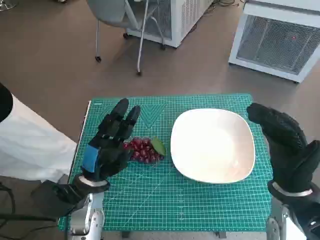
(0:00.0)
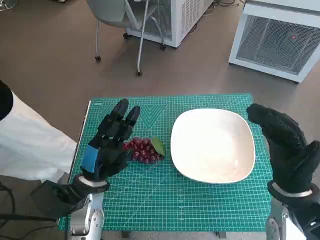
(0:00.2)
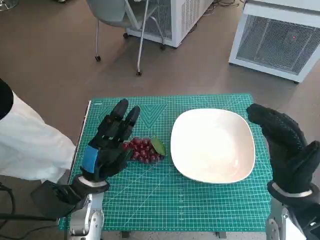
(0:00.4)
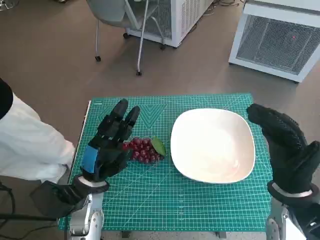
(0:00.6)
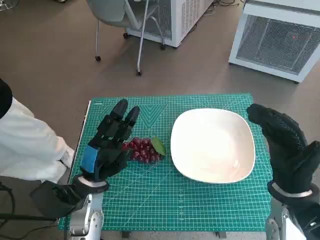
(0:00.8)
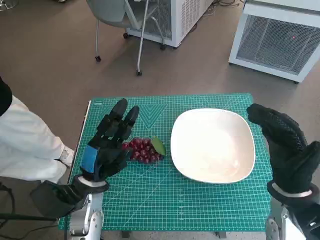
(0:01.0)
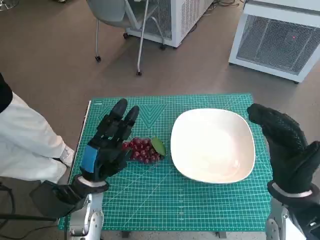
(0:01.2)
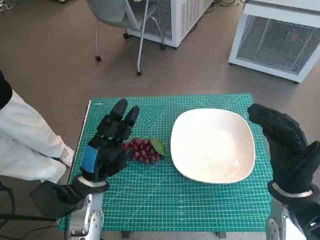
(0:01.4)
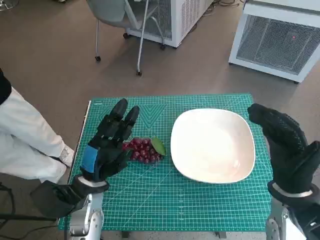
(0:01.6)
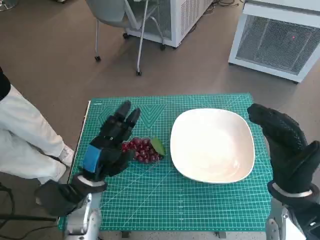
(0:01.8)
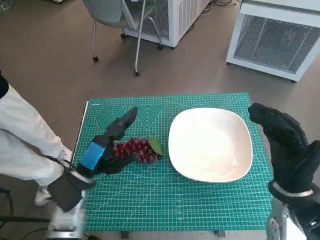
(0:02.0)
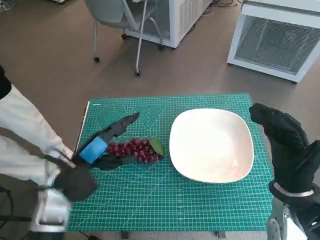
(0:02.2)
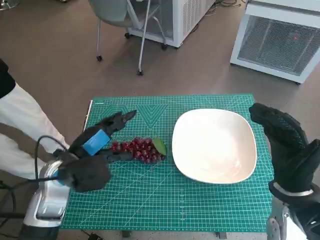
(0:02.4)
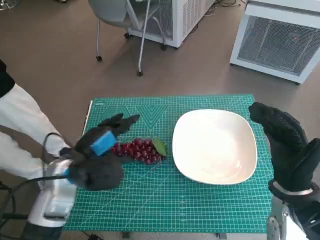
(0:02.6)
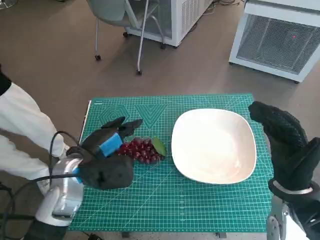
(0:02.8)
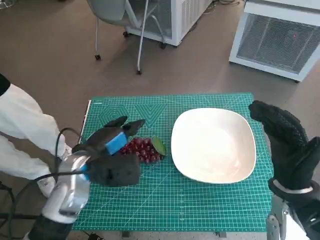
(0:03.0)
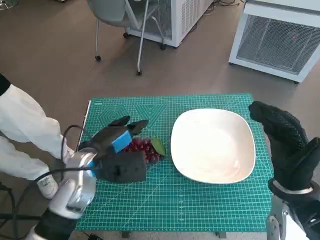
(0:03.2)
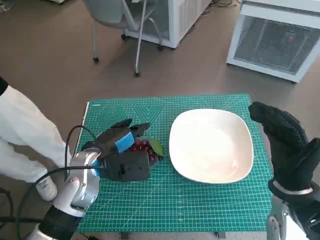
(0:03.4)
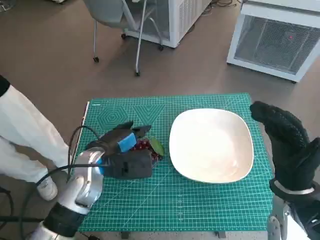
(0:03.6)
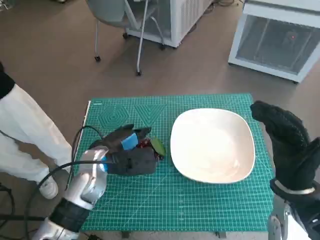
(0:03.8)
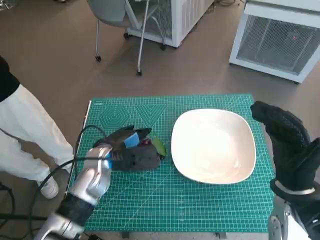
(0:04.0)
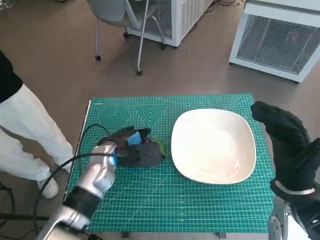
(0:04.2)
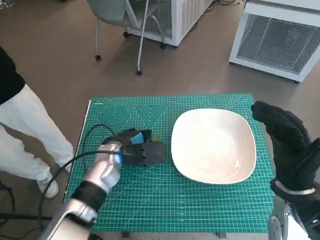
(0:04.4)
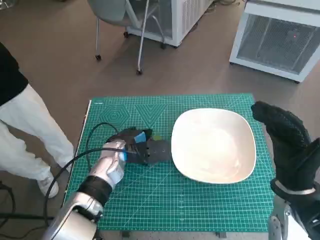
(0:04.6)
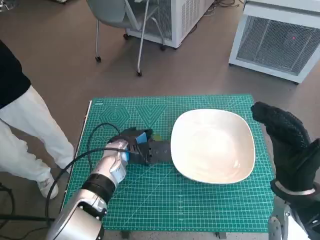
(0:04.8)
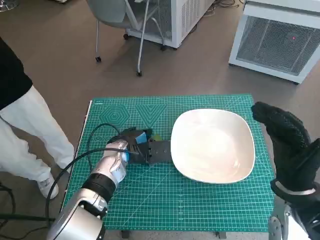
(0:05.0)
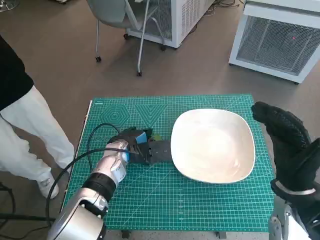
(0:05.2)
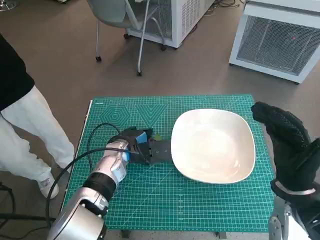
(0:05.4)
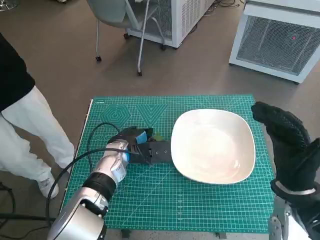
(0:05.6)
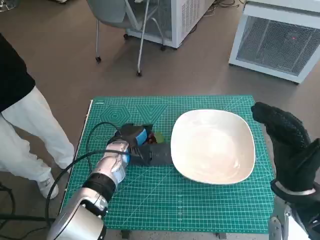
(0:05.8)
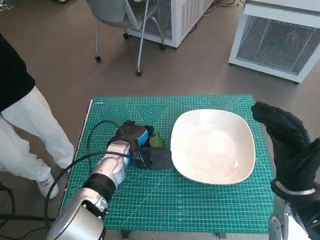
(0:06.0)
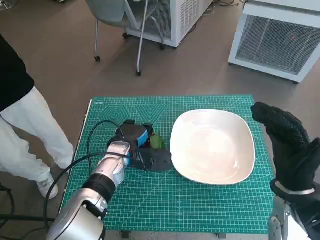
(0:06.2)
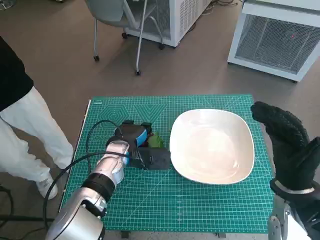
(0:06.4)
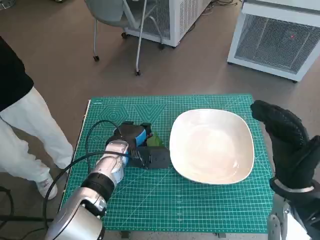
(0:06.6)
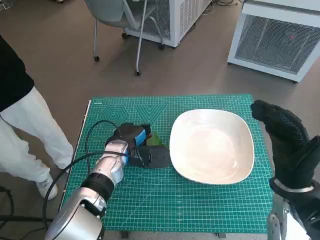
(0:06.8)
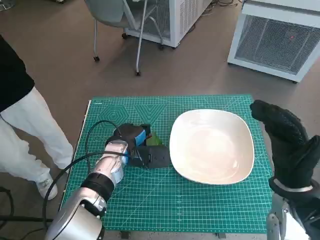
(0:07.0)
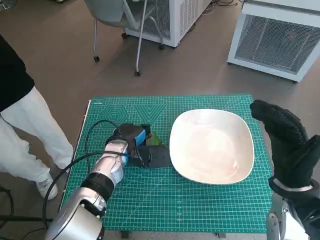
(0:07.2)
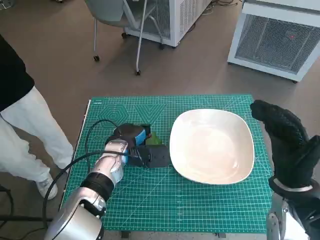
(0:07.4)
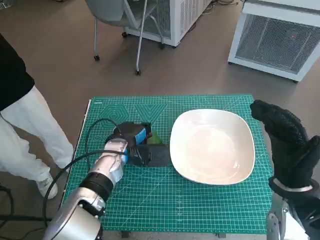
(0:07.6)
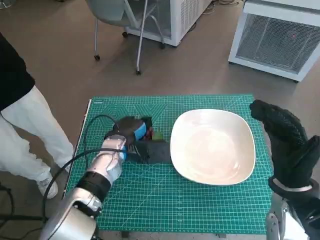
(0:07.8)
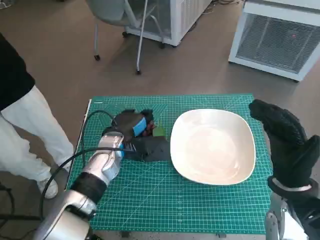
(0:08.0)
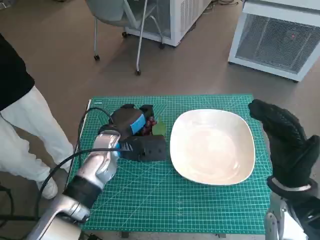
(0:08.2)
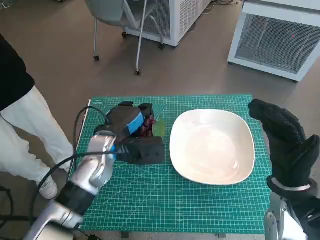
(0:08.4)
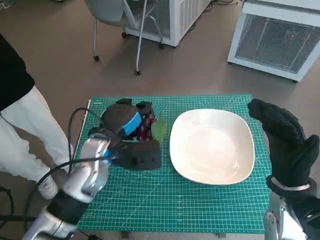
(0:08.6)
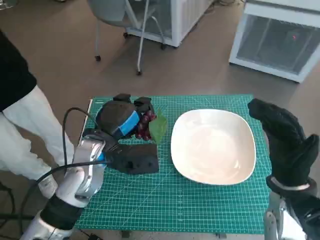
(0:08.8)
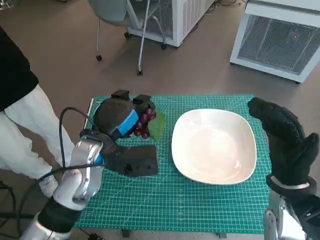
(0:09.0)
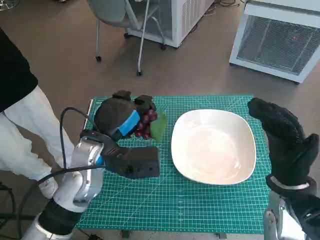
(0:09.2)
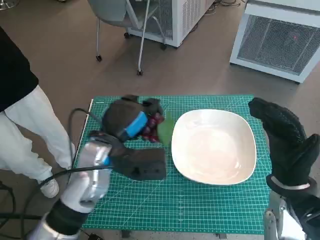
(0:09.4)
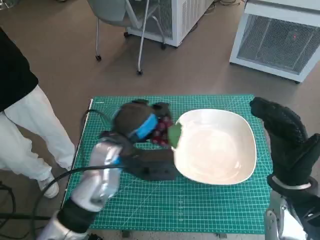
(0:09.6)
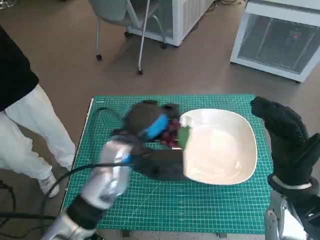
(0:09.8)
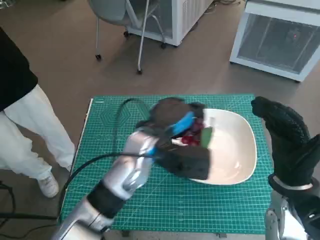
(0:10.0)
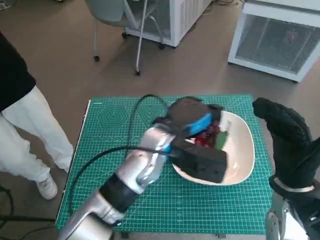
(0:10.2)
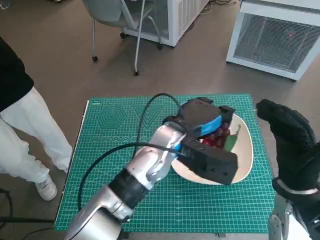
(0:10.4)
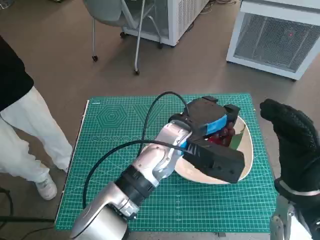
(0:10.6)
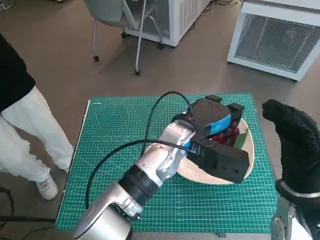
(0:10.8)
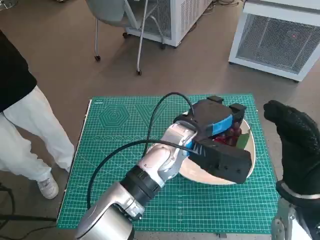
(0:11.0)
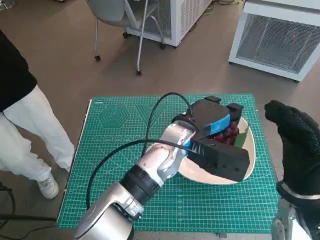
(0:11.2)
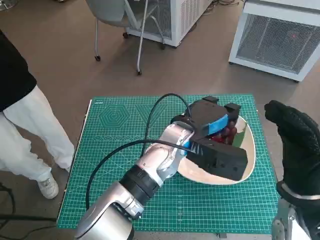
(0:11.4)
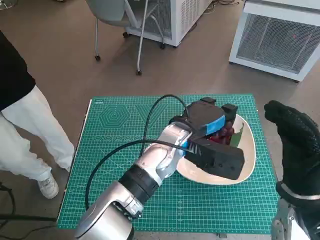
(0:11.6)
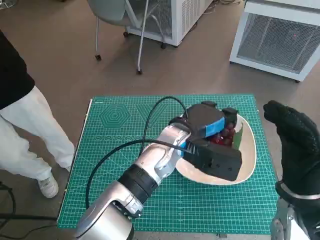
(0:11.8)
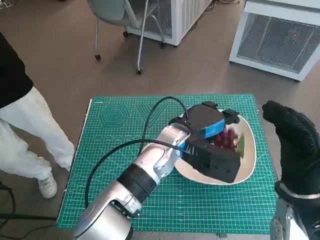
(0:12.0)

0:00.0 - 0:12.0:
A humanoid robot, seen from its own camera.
Task of the whole recording: Pick up the grapes and put them on the plate.
Step, 0:00.0 - 0:05.8: Grasp the grapes with left hand.
0:01.6 - 0:03.0: The left hand heads upward, covering about 5 cm.
0:03.0 - 0:04.4: The left hand goes about 5 cm forward.
0:04.4 - 0:06.0: There are only small adjustments of the hands.
0:06.0 - 0:07.6: Both hands stay about where they are.
0:07.6 - 0:09.0: The left hand goes some 10 cm upward and backward.
0:09.0 - 0:10.4: The left hand shifts some 15 cm to the right.
0:10.4 - 0:12.0: The hands make only small movements.

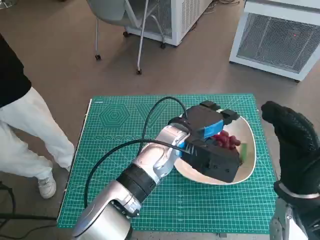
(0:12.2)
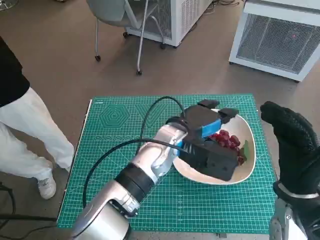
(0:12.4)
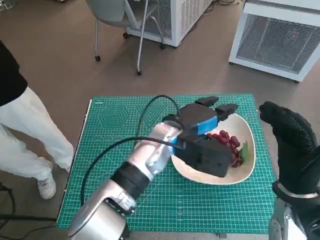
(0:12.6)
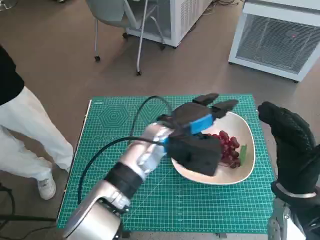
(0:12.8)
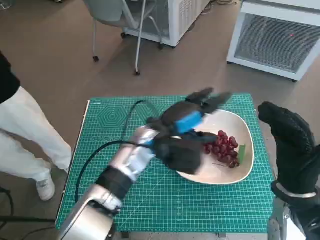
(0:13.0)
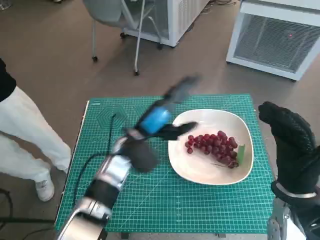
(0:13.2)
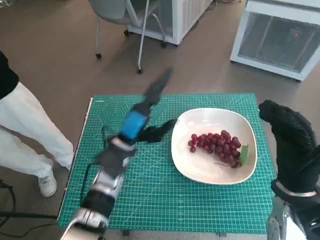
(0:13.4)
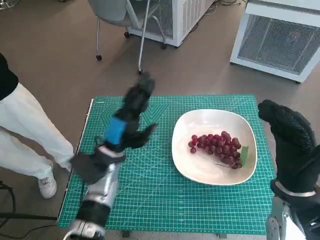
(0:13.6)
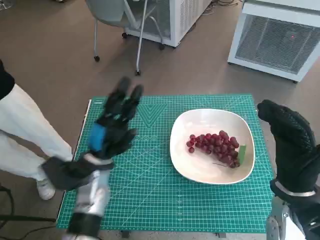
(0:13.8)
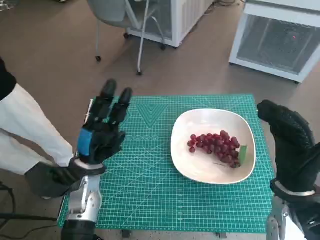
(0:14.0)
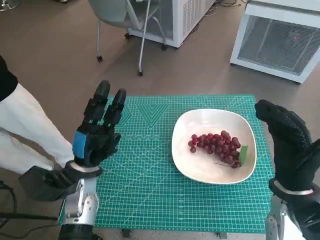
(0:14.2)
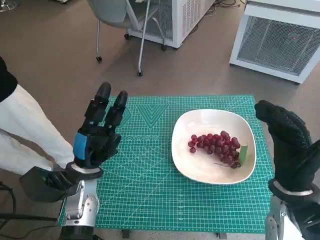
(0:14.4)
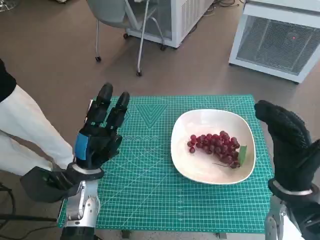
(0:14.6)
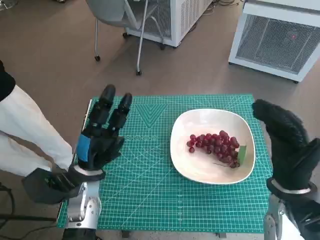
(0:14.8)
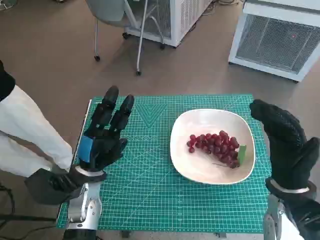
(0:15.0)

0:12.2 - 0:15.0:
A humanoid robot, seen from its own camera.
Task of the whole recording: Pick up the grapes and put them on the plate.
0:12.2 - 0:13.6: The left hand heads to the left, covering about 15 cm.
0:13.6 - 0:15.0: The left hand changes place by roughly 5 cm.

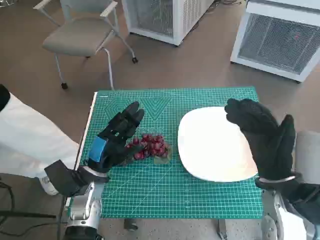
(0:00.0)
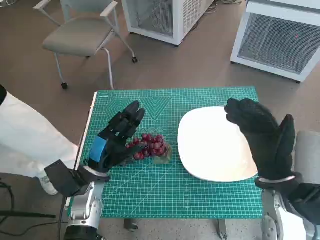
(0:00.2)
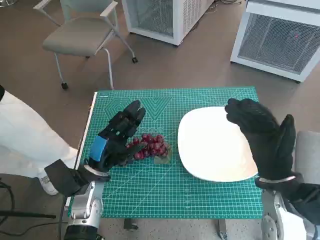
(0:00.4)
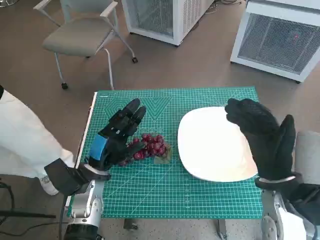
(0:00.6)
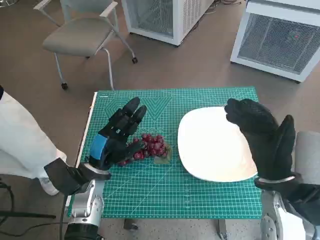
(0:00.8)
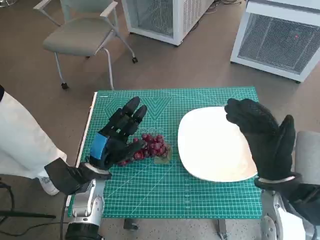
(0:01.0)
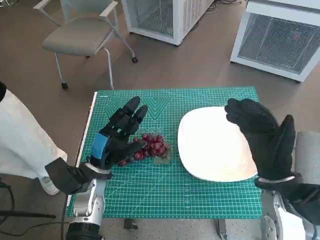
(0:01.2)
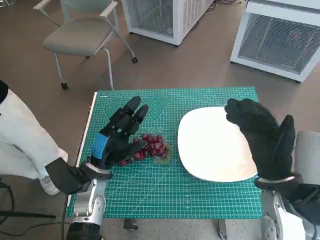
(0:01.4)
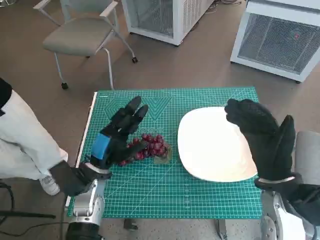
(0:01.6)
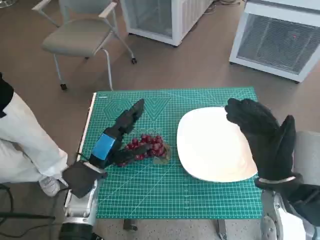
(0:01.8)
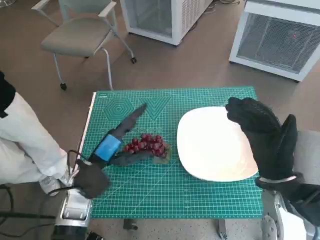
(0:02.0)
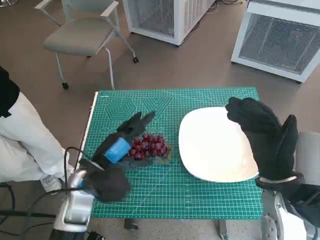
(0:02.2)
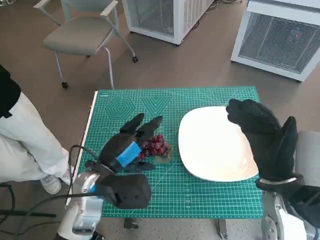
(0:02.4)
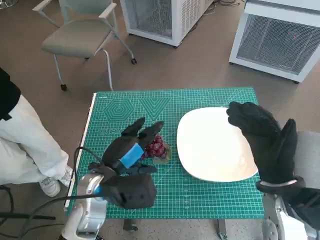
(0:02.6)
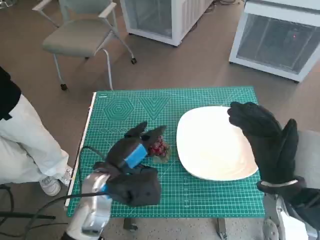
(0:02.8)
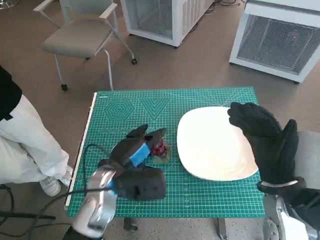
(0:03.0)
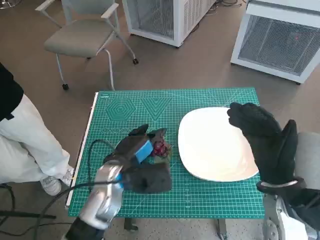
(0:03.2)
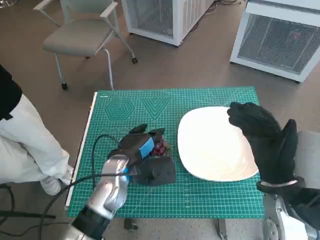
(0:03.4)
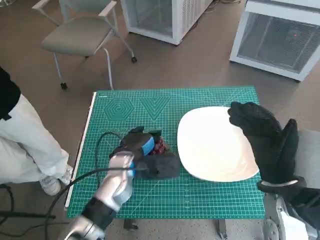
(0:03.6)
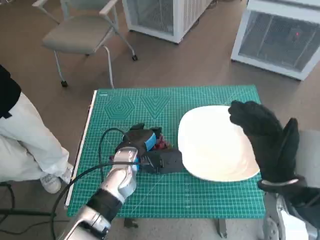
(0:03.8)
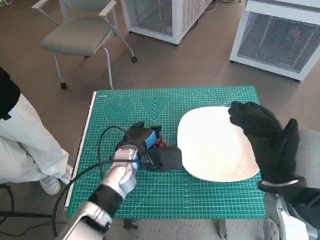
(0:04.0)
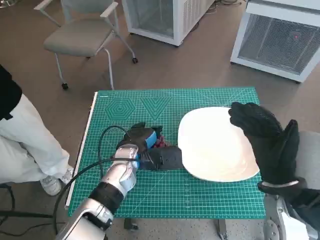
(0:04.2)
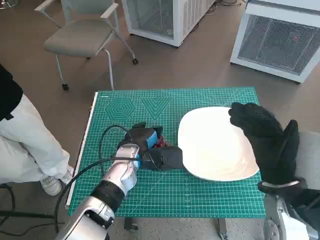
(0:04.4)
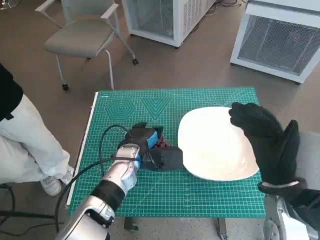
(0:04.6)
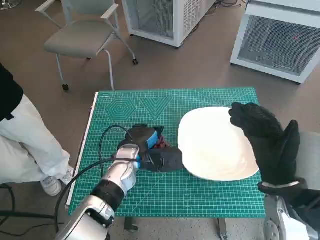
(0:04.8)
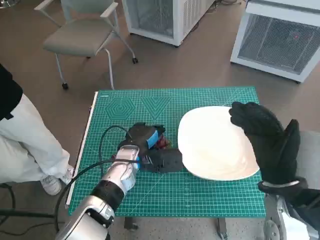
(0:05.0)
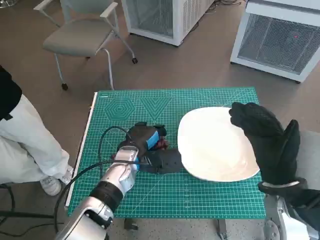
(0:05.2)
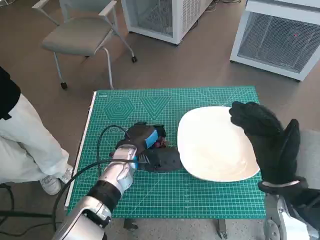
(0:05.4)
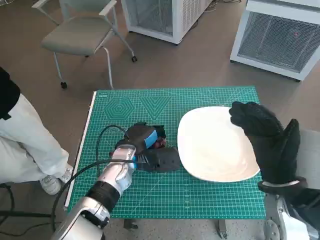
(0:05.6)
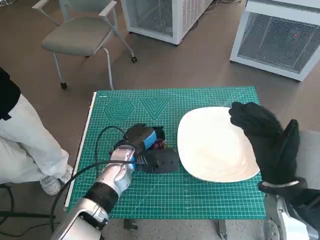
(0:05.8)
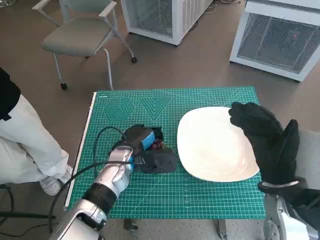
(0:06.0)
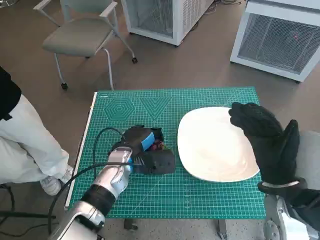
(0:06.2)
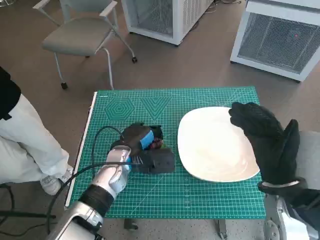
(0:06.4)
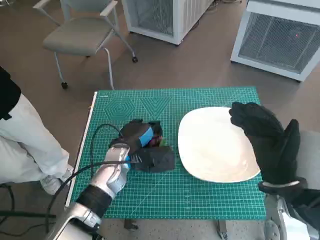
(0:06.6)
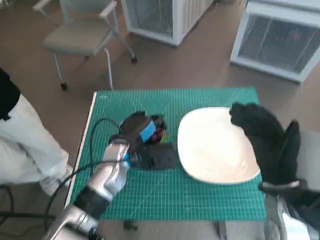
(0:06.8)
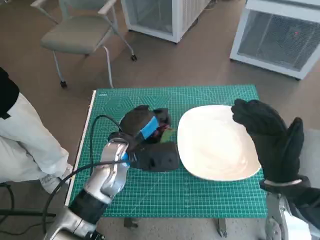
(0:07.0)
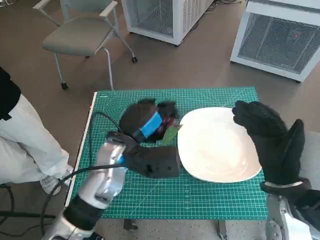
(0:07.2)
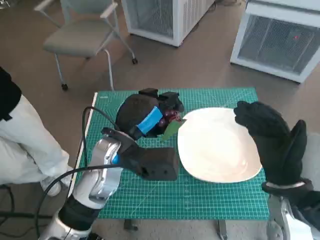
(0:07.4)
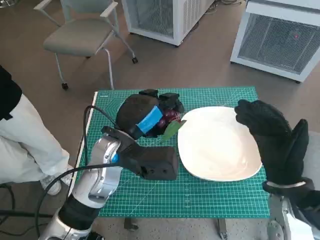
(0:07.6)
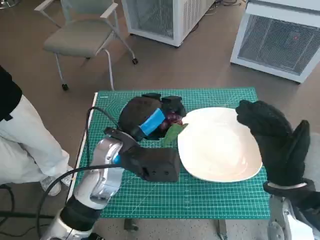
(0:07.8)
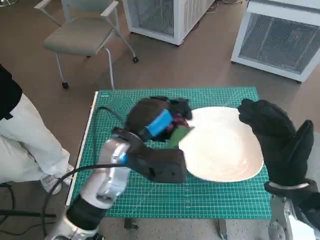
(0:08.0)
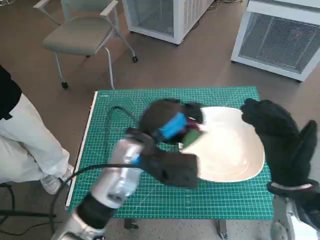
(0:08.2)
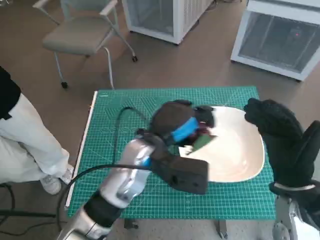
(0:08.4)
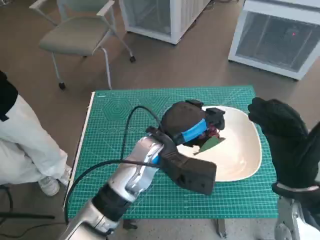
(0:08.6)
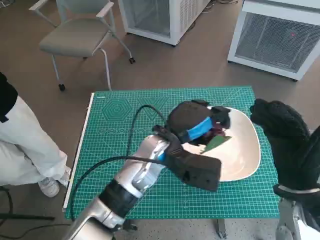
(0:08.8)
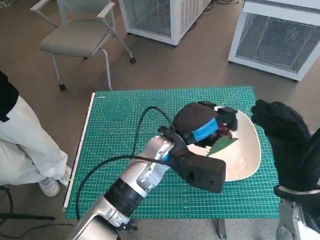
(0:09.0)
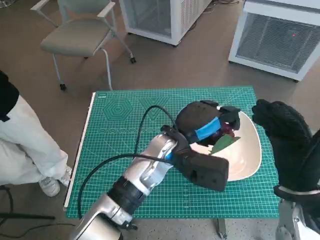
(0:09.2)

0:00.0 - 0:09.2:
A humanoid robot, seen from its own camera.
Task of the whole recording: Pick up the grapes and put them on the plate.
Step, 0:00.0 - 0:05.4: Grasp the grapes with left hand.
0:01.6 - 0:03.0: The left hand ends up some 5 cm from where it was.
0:03.0 - 0:04.6: The left hand goes about 10 cm forward.
0:04.6 - 0:06.2: The hands stay close to where they were, moving slightly.
0:06.2 - 0:07.6: The left hand heads upward, covering roughly 10 cm.
0:07.6 - 0:09.2: The left hand heads to the right, covering about 10 cm.
